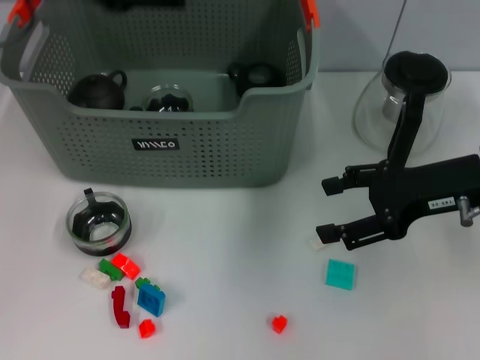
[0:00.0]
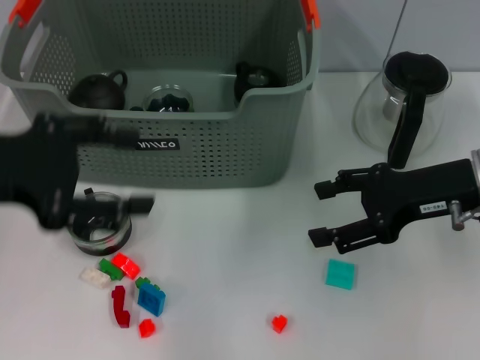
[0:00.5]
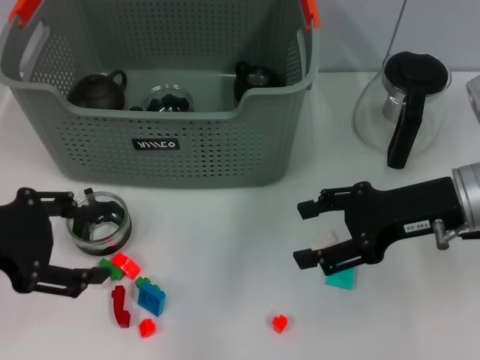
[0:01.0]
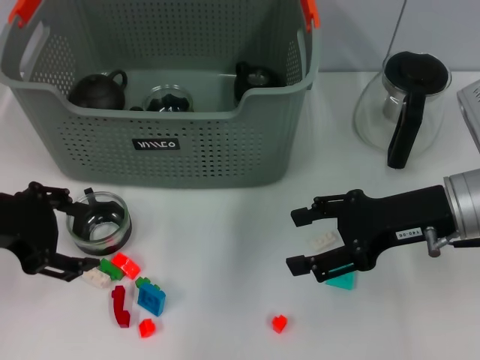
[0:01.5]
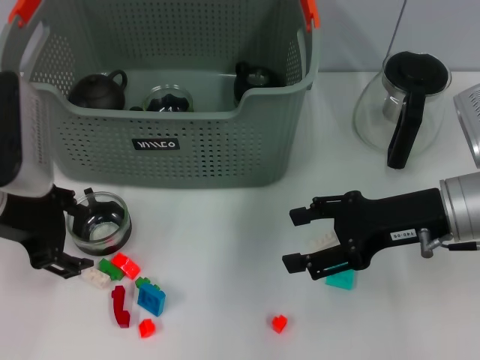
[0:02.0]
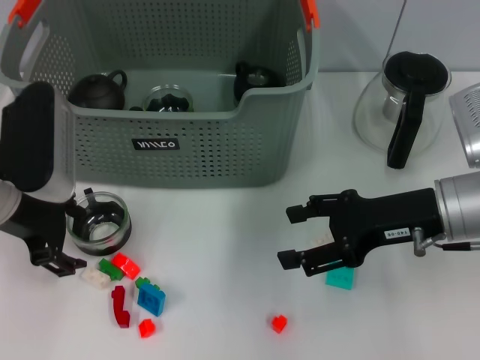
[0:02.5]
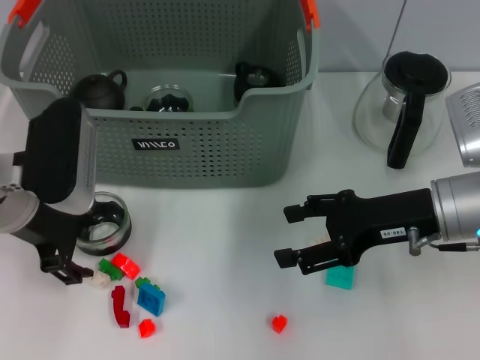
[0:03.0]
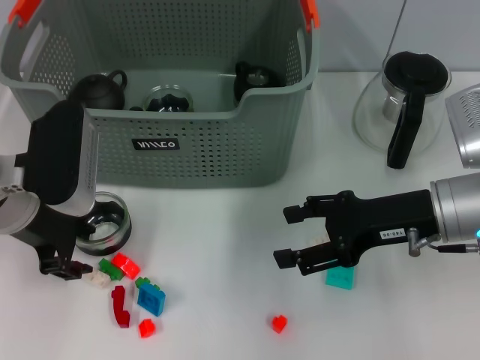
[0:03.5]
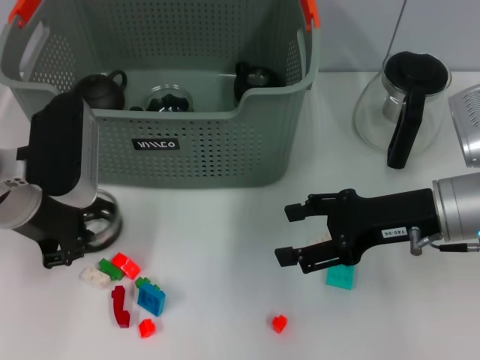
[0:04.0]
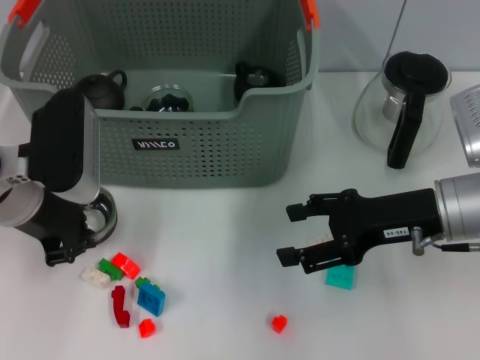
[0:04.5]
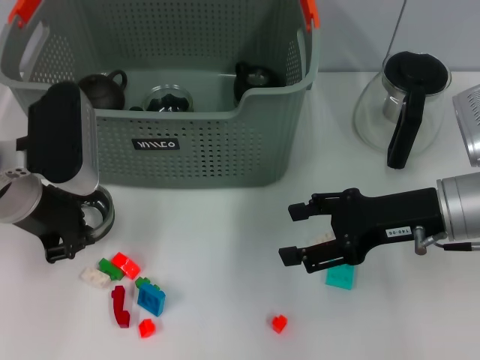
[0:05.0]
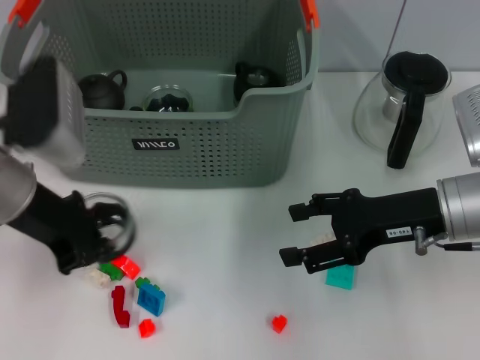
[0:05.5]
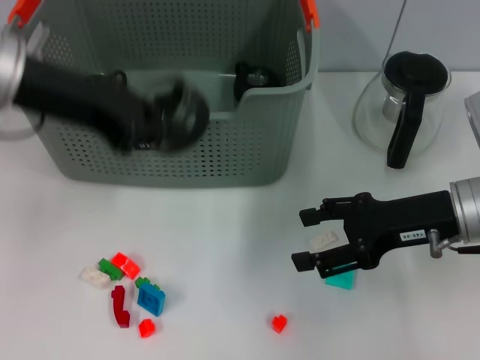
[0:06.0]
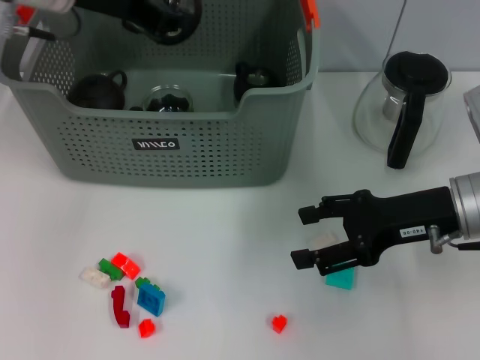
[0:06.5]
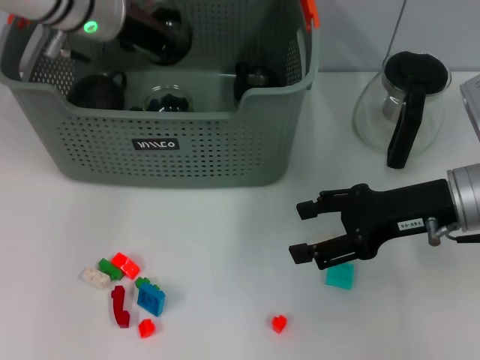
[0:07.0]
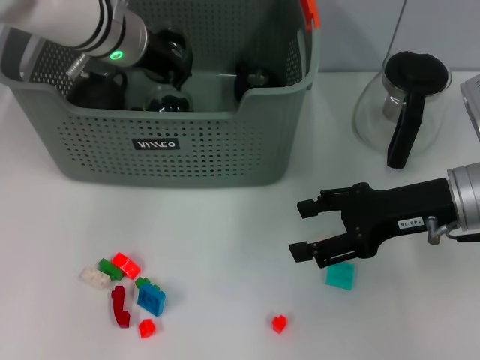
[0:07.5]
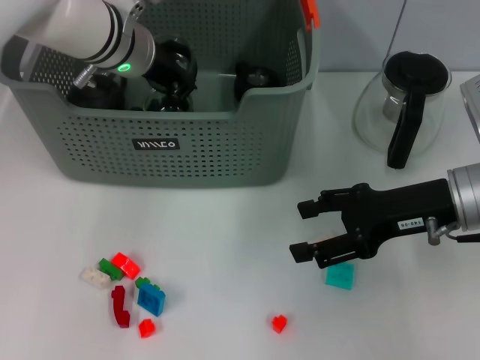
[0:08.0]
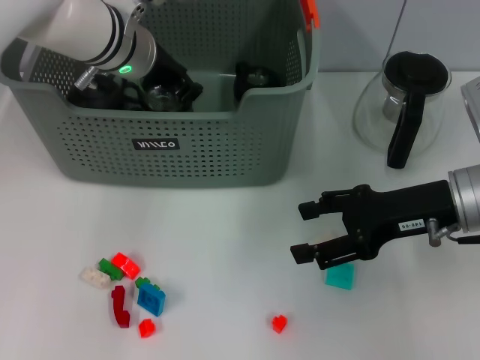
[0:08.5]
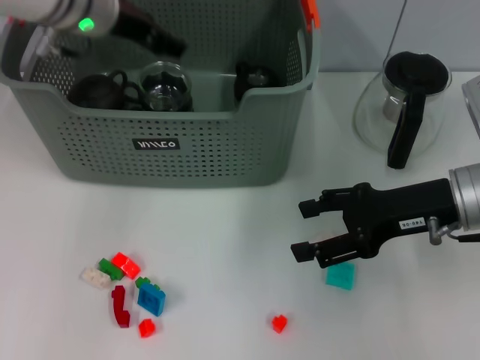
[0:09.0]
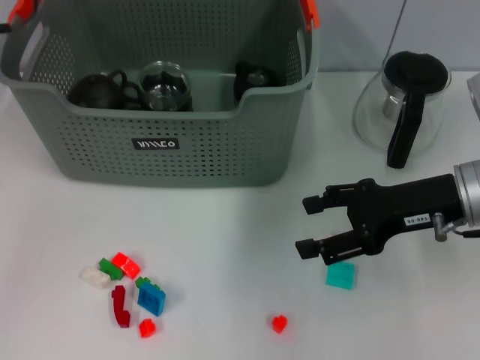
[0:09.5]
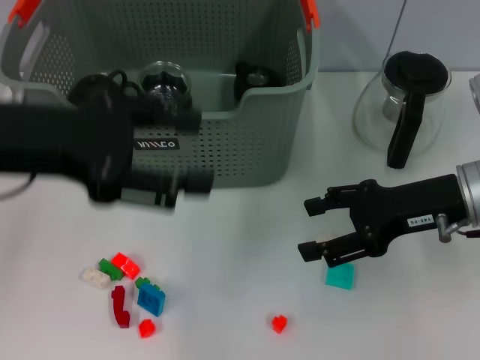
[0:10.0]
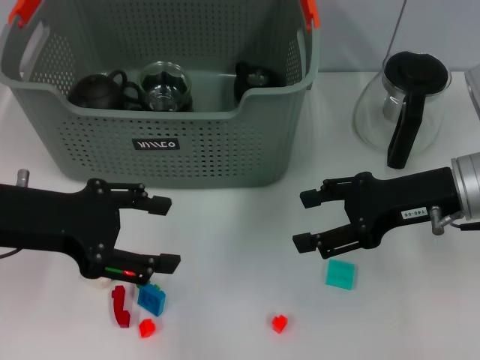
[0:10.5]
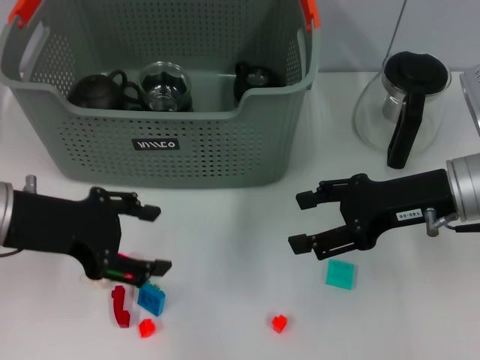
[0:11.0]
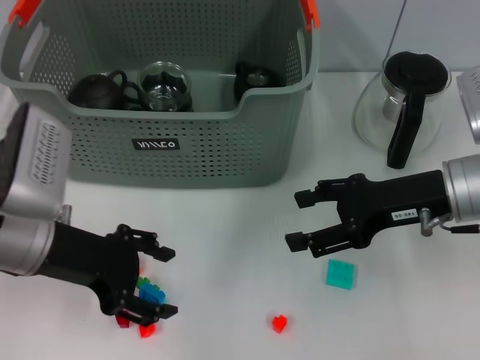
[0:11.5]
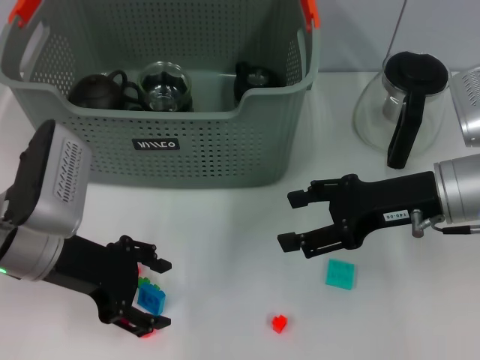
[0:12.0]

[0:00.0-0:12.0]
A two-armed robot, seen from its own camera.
Task of the whole recording: pick up the teacup on the table and place it into the storage bin, pick up the block on the table and place it into the storage bin.
Step, 0:00.0 to 0:04.0: Grasp the cup with left gripper.
Step, 0:04.5 to 0:08.5: Place the cup in the storage box with left gripper.
0:00.0 to 0:02.0: The left gripper travels downward by some 15 cm.
0:02.0 to 0:04.0: The grippers stay close to where they were, moving slightly.
0:04.0 to 0:06.0: The left gripper moves upward, some 10 cm, and closes.
0:06.0 to 0:08.0: The left gripper shifts roughly 15 cm forward, downward and to the right.
0:08.0 to 0:10.0: The left gripper is displaced backward and to the left by approximately 20 cm, and opens up.
0:10.0 to 0:12.0: The left gripper moves downward, some 10 cm.

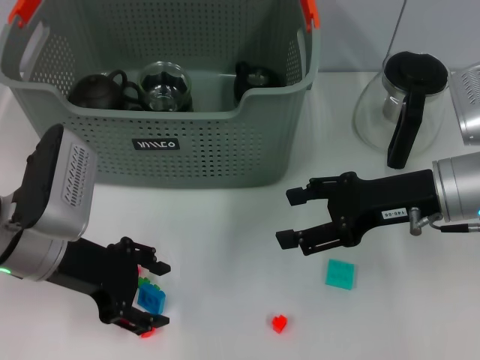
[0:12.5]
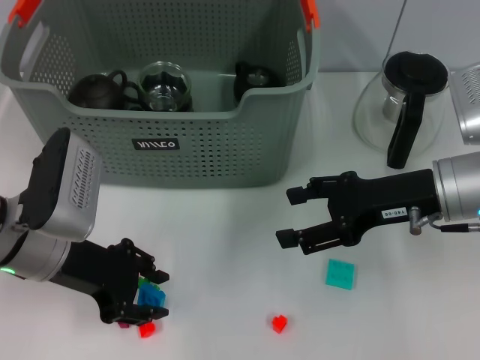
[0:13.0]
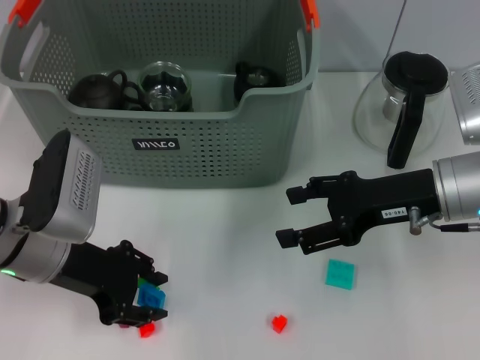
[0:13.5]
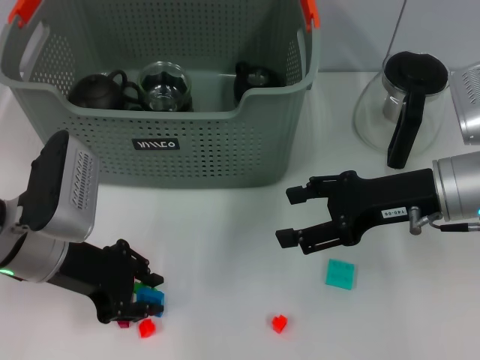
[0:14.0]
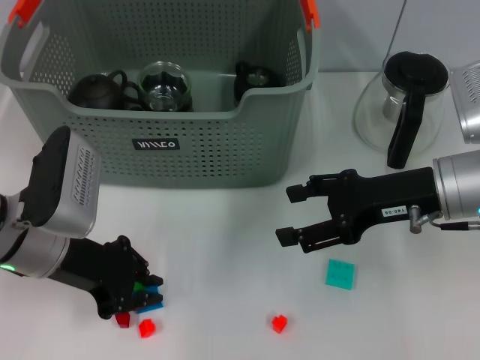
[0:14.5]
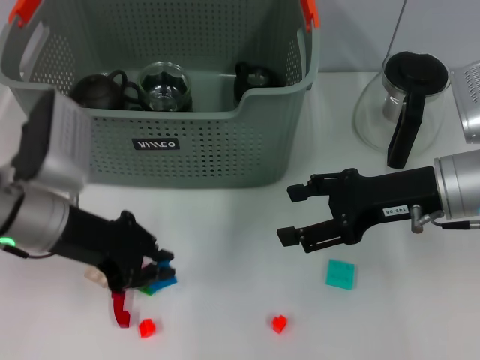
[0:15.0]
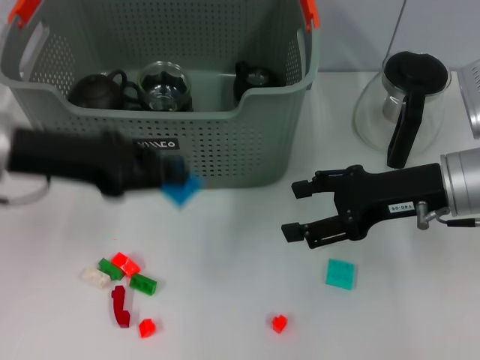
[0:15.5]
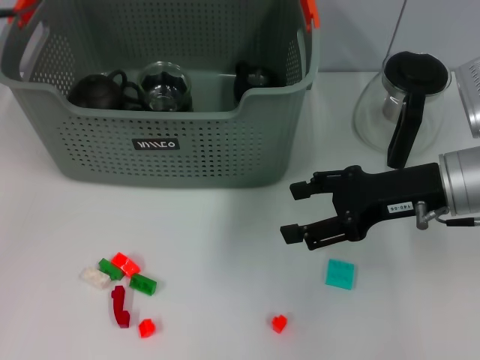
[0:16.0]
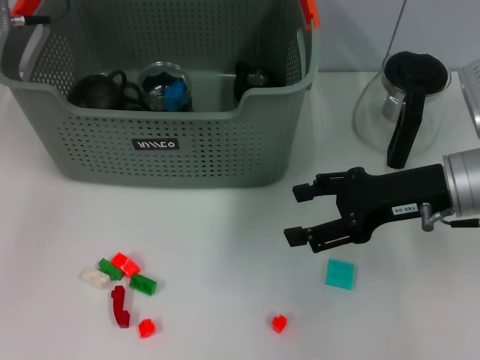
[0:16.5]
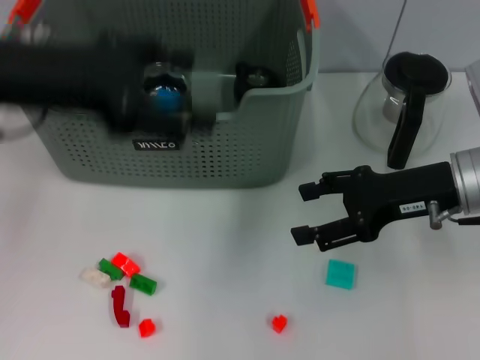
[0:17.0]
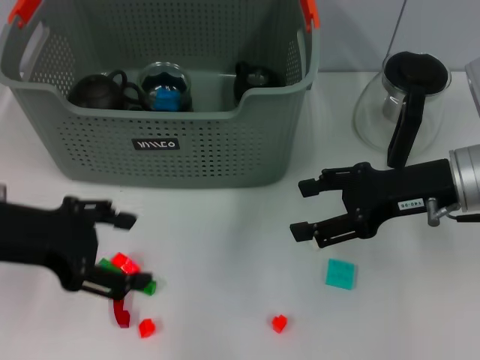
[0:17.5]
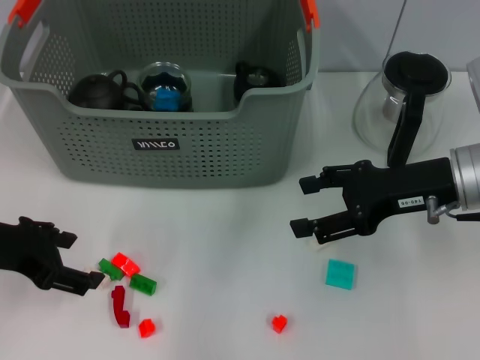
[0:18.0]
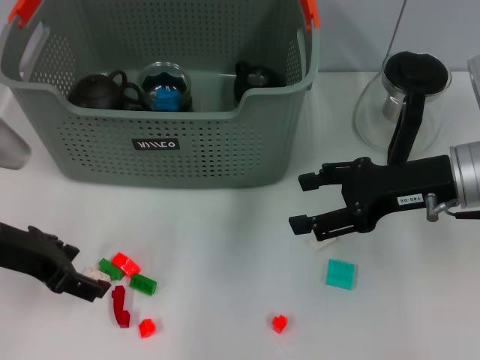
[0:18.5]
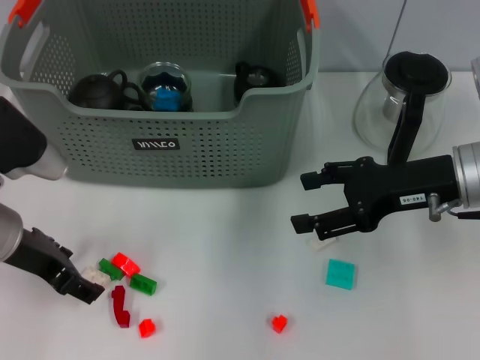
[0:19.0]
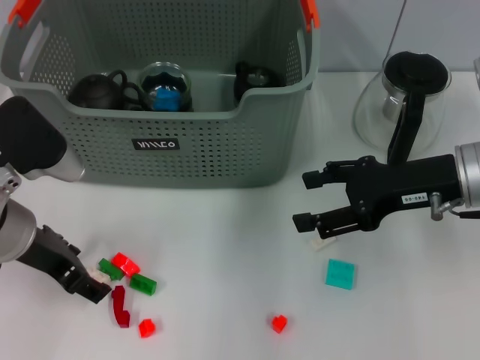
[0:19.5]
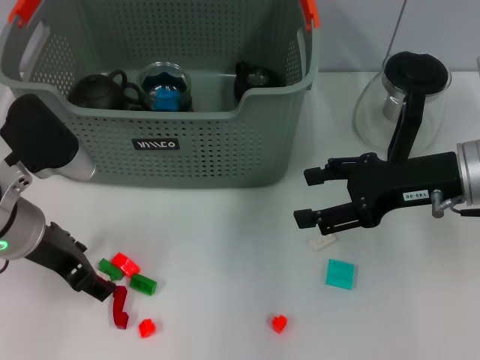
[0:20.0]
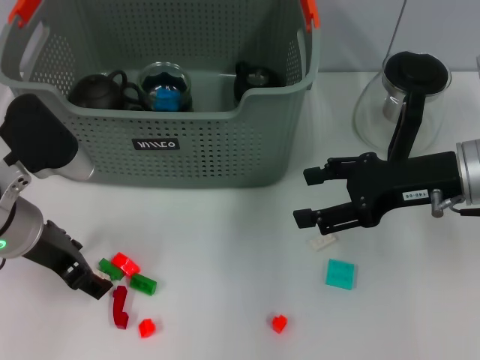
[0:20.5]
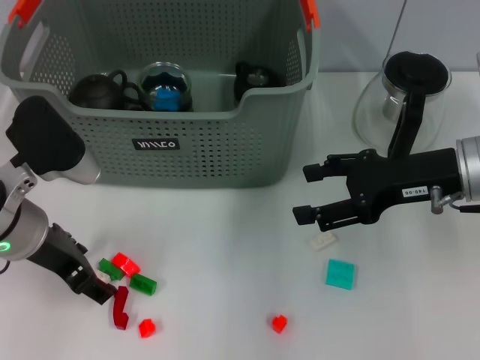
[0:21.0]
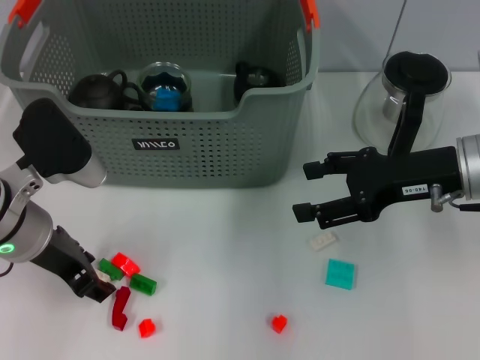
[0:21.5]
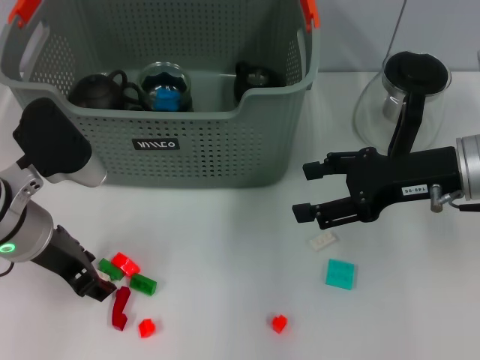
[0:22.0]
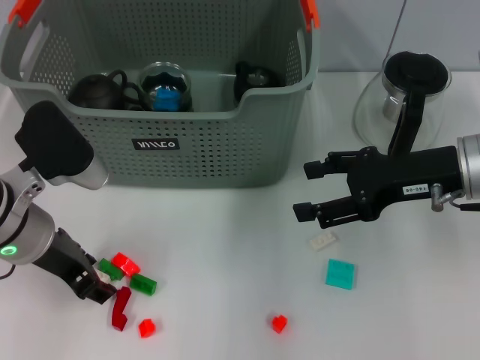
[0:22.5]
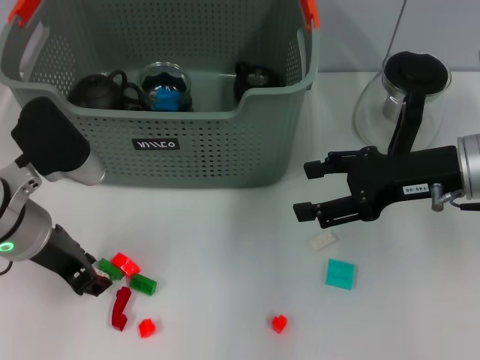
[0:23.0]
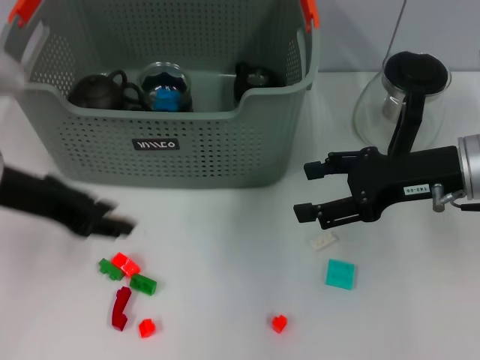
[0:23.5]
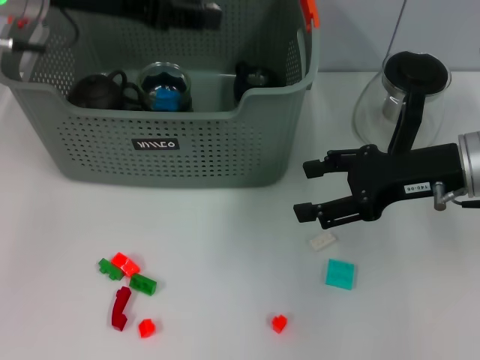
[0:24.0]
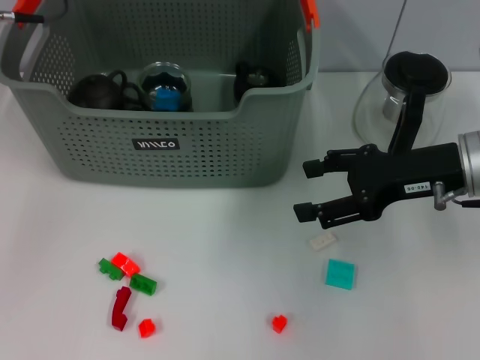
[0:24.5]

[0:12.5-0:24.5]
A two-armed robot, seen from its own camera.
Task of the whole recording: pick up the teacup on the table and place it into the storage bin, pick up the block on the table and place it into the storage bin.
Step, 0:14.5 to 0:16.5: Place the dark blue block in the storage box with left gripper.
Step, 0:17.0 to 0:22.5: Grasp the white block with left gripper.
Step, 0:23.0 to 0:24.0: Place the white block in the storage box with left gripper.
0:12.5 to 0:14.5: The left gripper closes.
0:14.5 to 0:16.5: The left gripper heads upward and forward, covering some 20 cm.
0:16.5 to 0:18.5: The left gripper moves backward and downward, approximately 20 cm, and opens up.
0:18.5 to 0:20.5: The grippers move only a little.
0:20.5 to 0:22.5: Neither gripper changes place.
0:22.5 to 0:24.5: The left gripper is displaced upward and forward by some 20 cm.

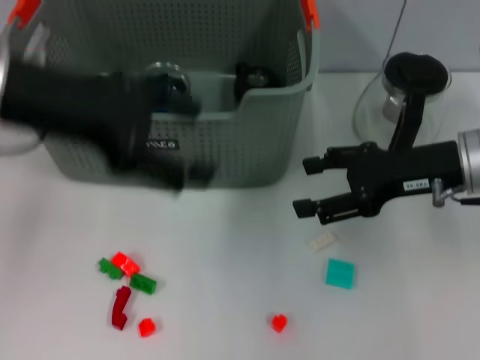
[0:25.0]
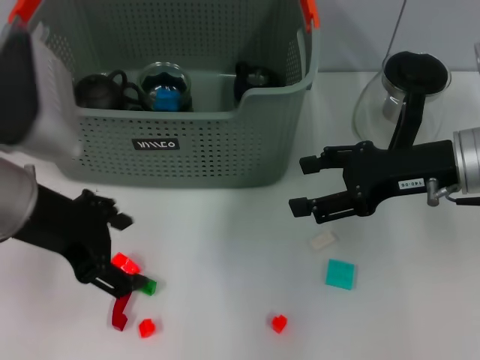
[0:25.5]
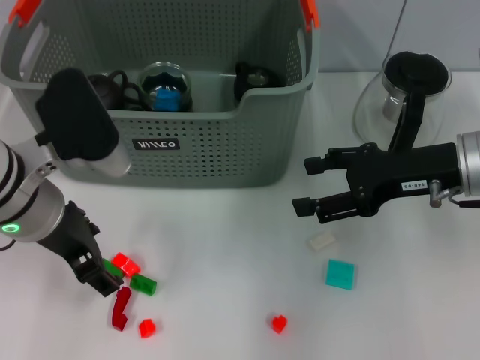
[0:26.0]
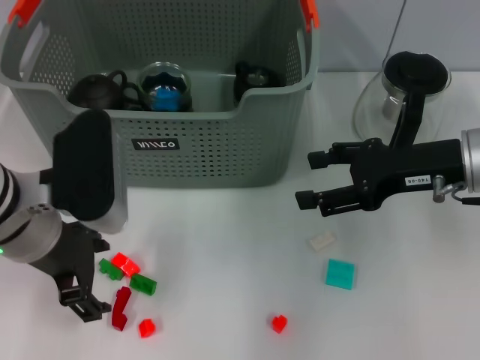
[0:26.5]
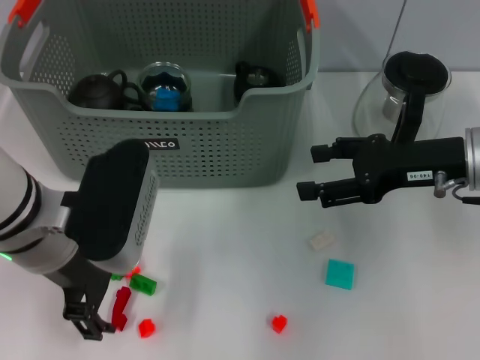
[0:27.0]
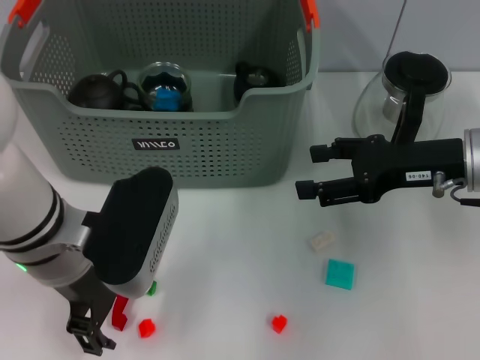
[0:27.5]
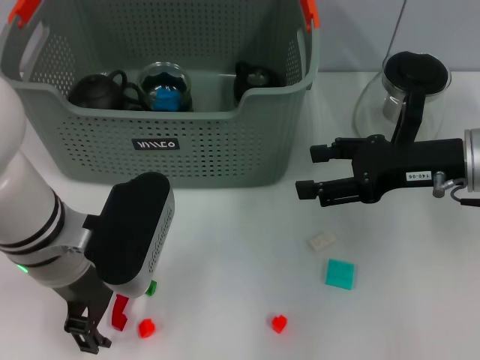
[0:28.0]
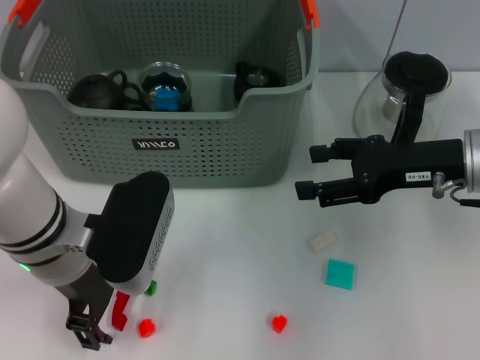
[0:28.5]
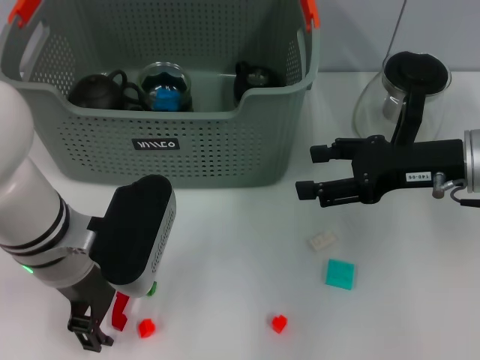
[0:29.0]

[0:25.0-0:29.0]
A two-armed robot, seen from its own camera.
Task of the whole recording: pick up the teacup on the table and place it into the storage bin, pick up the block on the table and place it into the storage bin.
0:25.0 to 0:27.0: The left gripper shifts about 10 cm downward.
0:27.0 to 0:29.0: The grippers make only small movements.
